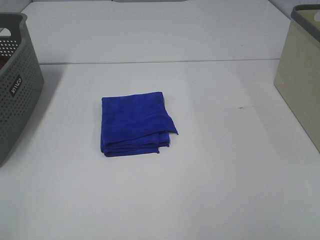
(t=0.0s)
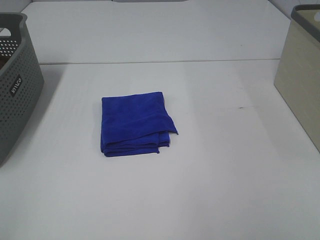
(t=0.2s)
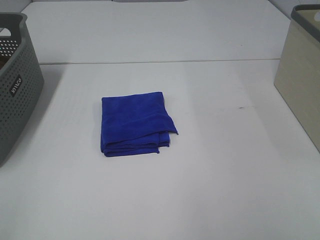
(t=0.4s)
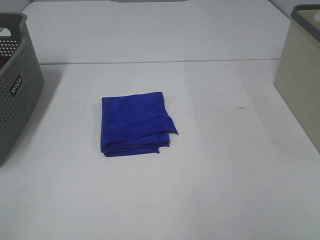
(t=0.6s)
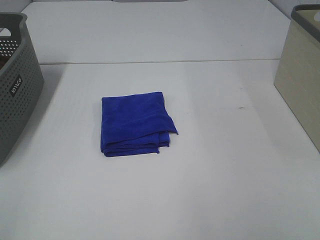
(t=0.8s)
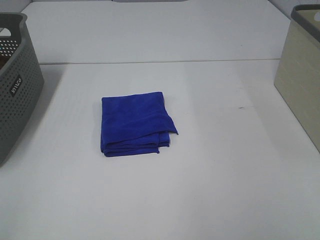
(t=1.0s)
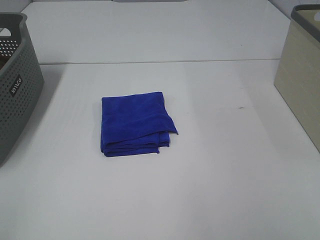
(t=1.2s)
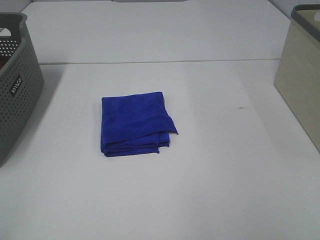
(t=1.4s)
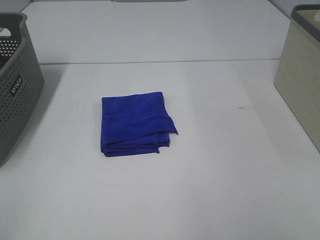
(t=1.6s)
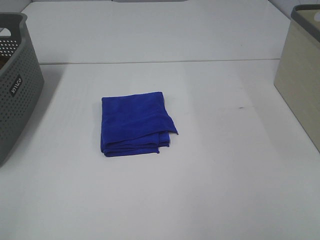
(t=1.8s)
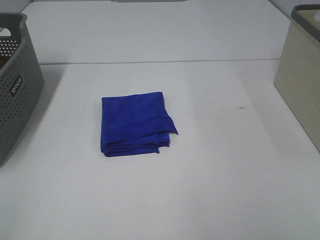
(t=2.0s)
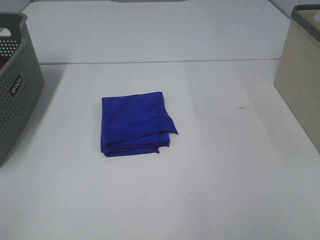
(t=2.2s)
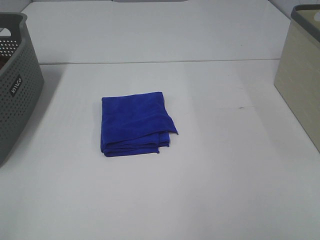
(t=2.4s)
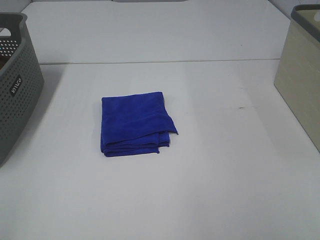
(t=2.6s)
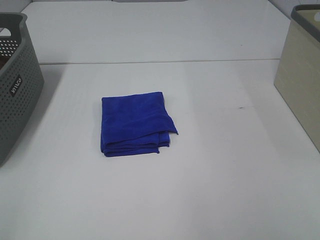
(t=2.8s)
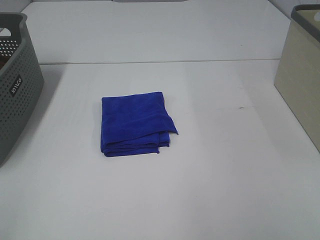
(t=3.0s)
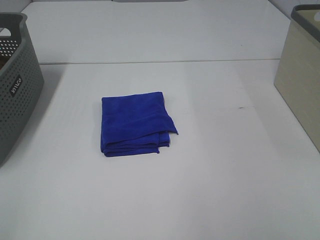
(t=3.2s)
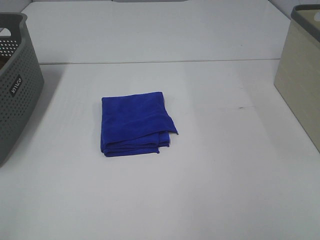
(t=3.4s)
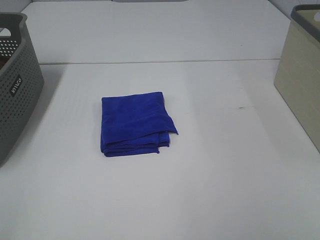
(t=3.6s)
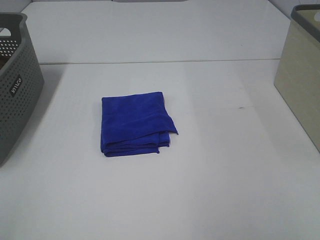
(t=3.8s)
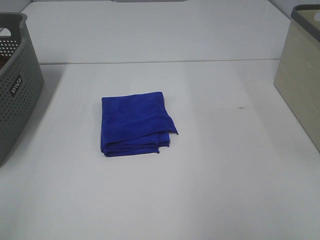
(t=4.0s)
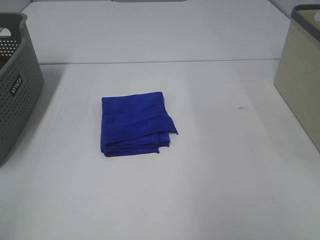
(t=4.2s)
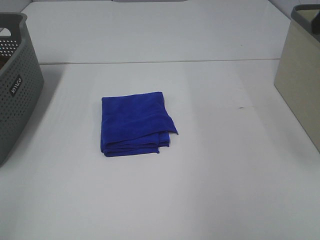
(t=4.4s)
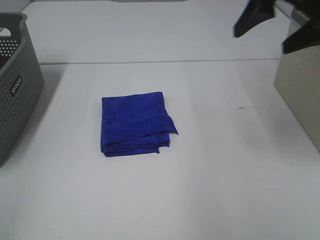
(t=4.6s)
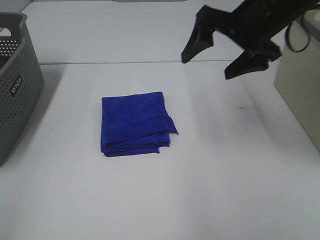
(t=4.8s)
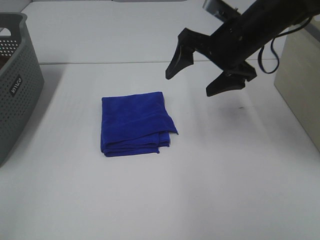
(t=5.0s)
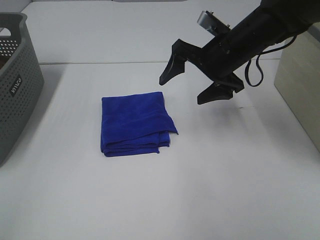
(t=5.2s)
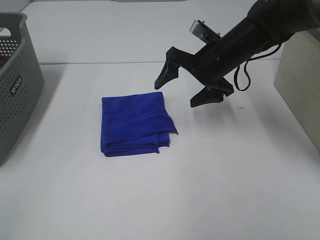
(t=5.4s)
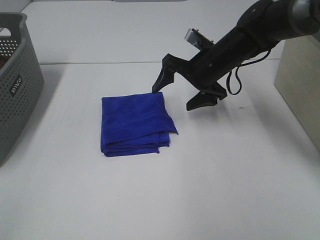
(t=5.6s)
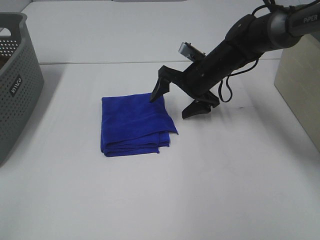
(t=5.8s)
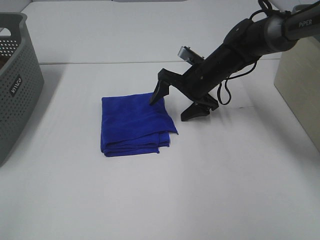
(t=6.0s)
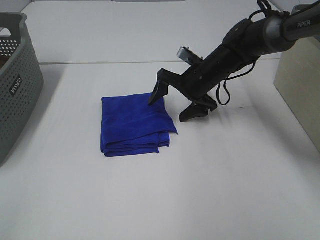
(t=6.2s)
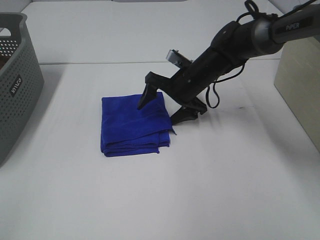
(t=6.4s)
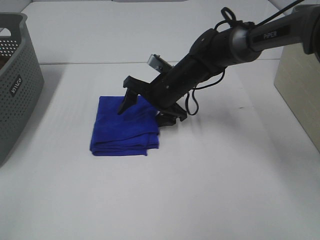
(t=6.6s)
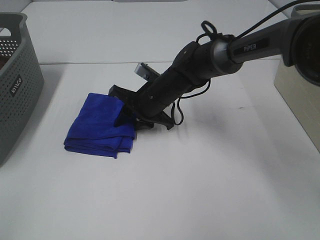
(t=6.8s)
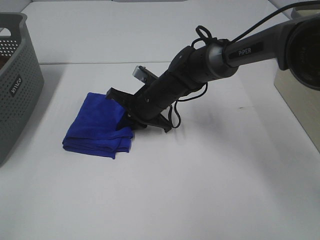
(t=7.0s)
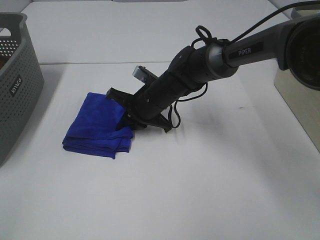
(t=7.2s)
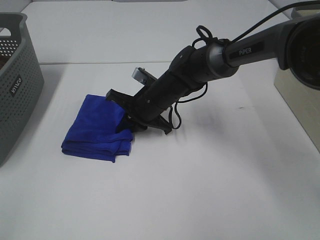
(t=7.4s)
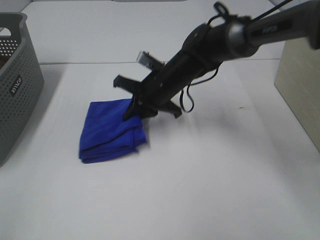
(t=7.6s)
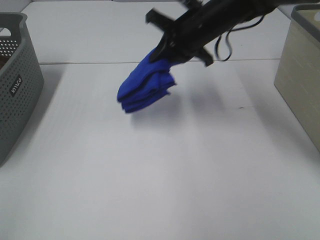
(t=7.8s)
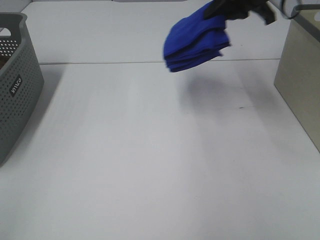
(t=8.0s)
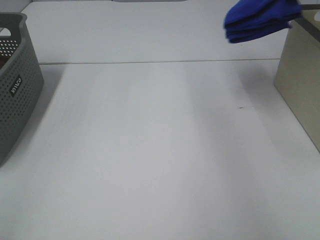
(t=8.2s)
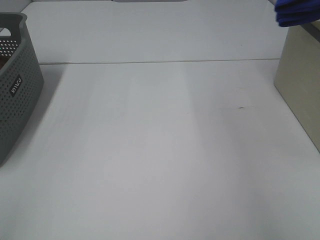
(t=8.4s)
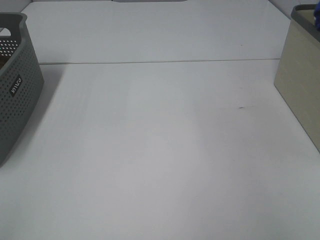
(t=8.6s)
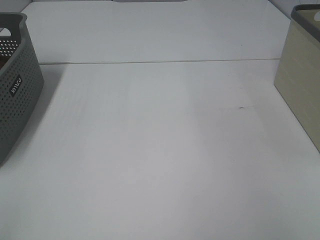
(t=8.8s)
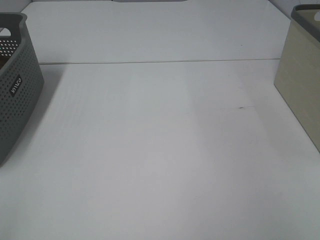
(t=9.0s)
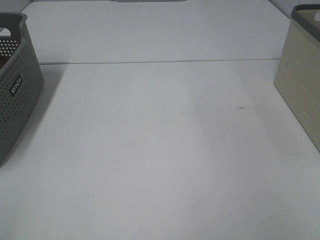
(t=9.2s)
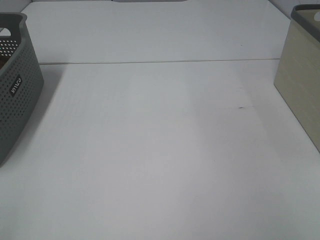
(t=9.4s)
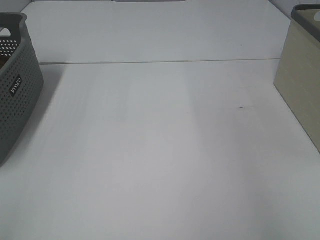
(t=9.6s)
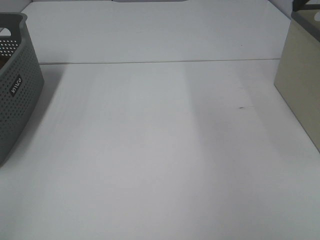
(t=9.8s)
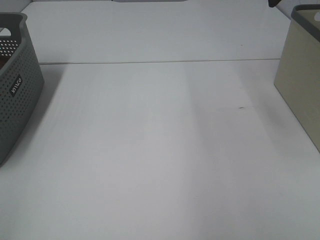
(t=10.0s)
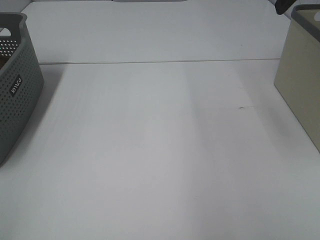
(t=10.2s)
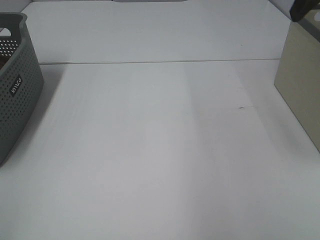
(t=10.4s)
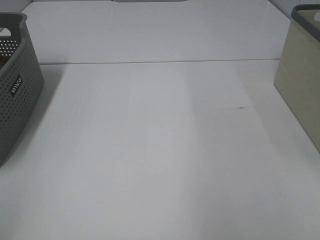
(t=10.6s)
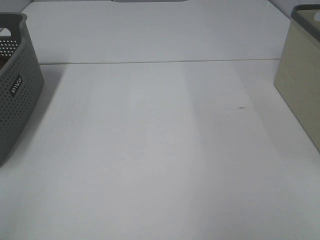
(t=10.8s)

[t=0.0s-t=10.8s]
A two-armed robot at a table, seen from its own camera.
Step, t=0.0s to t=7.0s: Right hand: grab the folded blue towel.
Step, t=7.2s to t=9.4s: Right hand: place the blue towel in right basket.
t=0.0s to t=3.0s: Both grippers stay about where they are.
t=3.0s to t=4.6s: The right gripper heads forward, covering about 30 cm.
t=4.6s to t=6.2s: The right gripper shifts approximately 25 cm downward, forward and to the left.
t=6.2s to t=7.8s: The right gripper moves upward, approximately 15 cm, and closes up.
t=7.8s to t=9.2s: The right gripper heads to the right, covering approximately 35 cm, and opens.

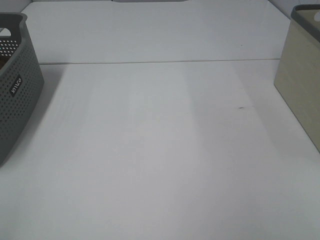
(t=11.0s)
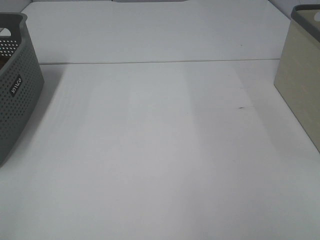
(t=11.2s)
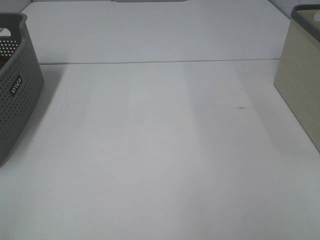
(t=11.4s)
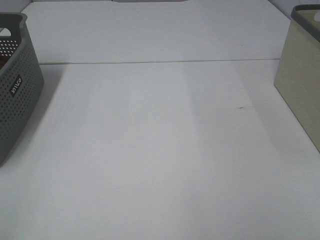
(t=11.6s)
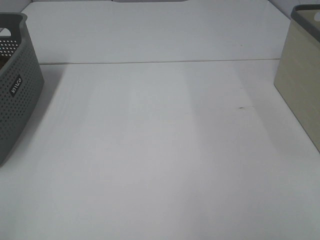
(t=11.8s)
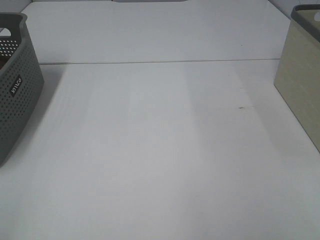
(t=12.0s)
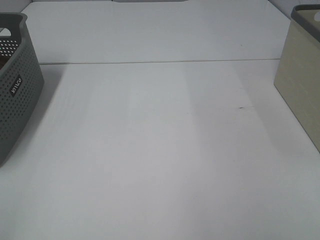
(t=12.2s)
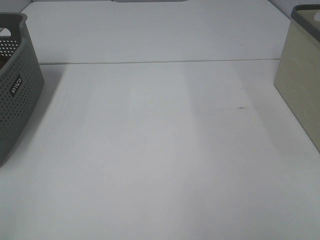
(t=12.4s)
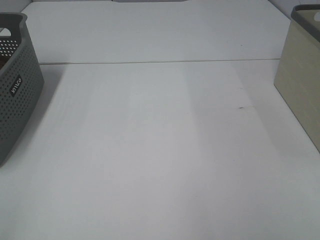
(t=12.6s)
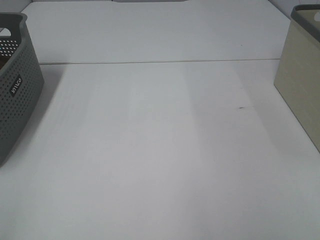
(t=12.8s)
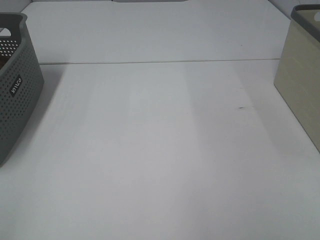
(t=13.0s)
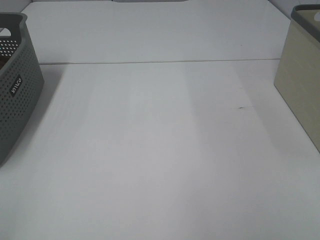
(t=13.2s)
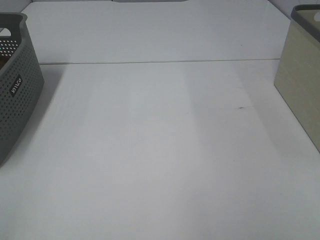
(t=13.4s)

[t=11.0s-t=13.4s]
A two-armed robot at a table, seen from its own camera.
t=12.2s to t=13.4s: Both grippers stay put.

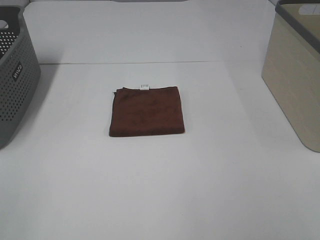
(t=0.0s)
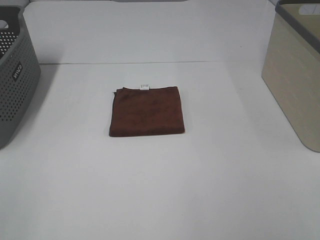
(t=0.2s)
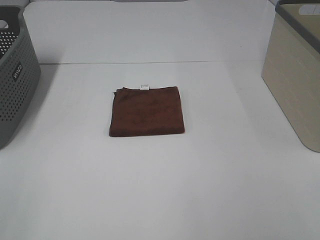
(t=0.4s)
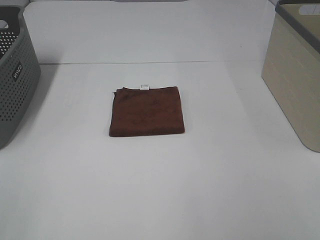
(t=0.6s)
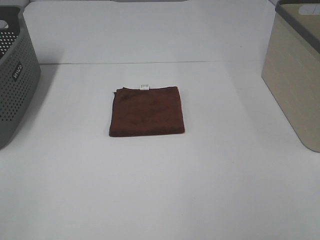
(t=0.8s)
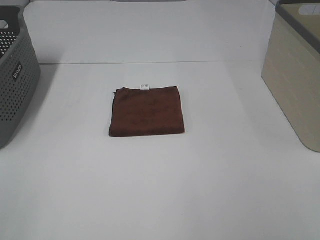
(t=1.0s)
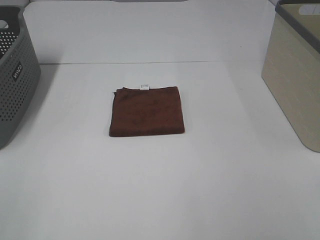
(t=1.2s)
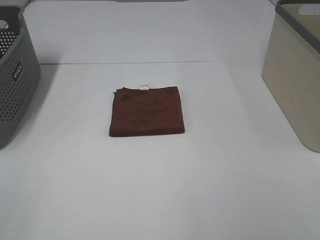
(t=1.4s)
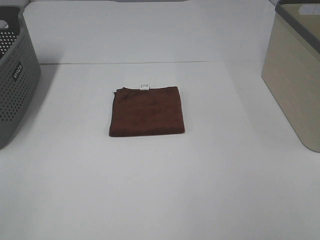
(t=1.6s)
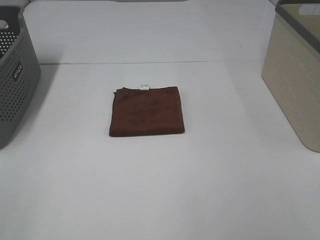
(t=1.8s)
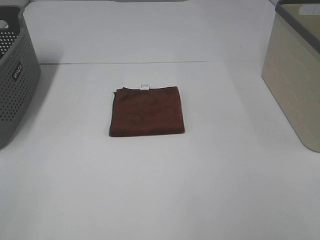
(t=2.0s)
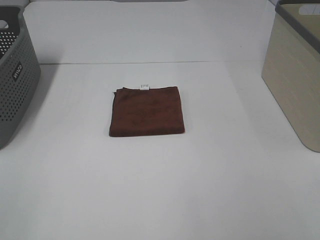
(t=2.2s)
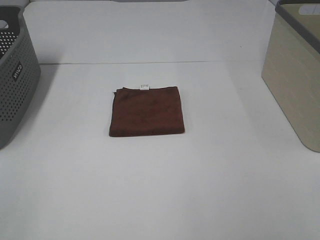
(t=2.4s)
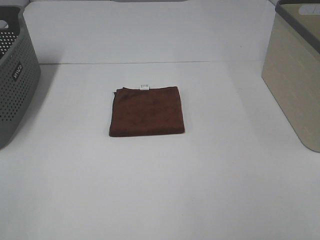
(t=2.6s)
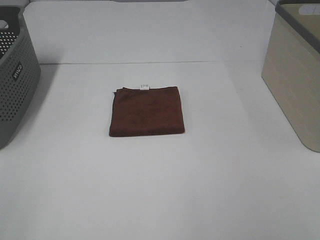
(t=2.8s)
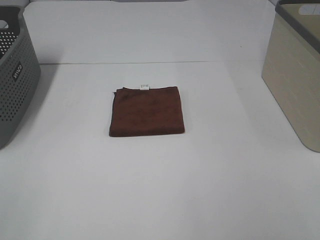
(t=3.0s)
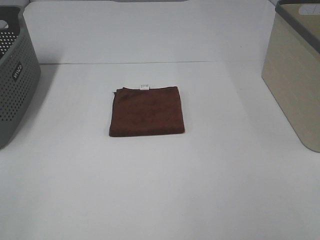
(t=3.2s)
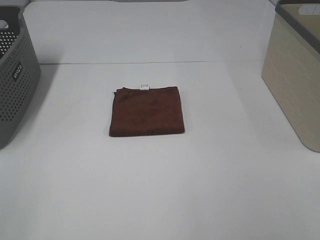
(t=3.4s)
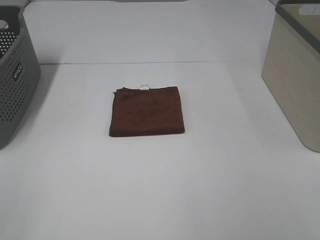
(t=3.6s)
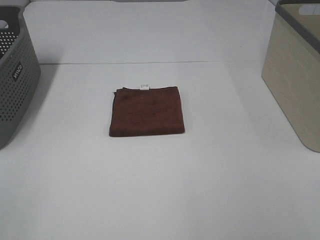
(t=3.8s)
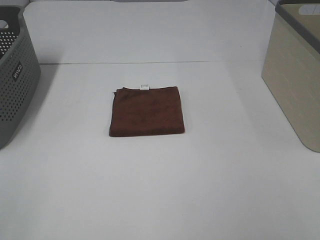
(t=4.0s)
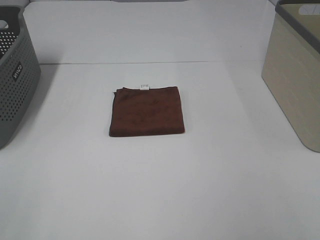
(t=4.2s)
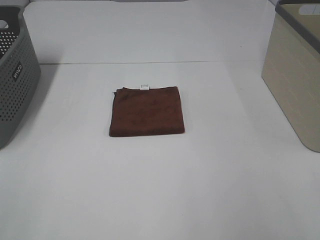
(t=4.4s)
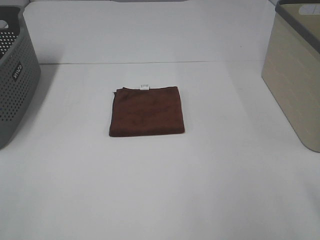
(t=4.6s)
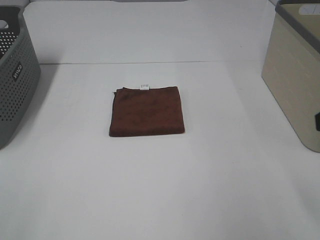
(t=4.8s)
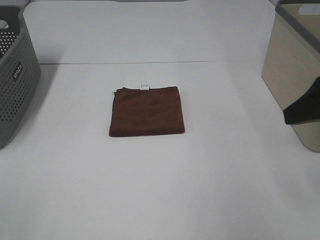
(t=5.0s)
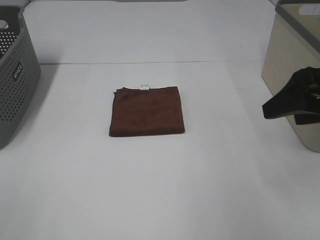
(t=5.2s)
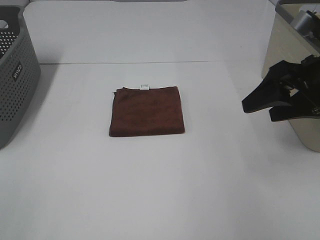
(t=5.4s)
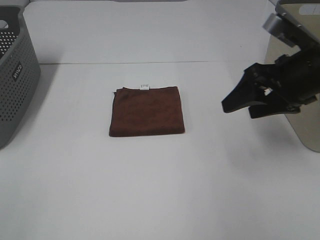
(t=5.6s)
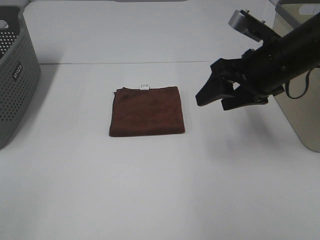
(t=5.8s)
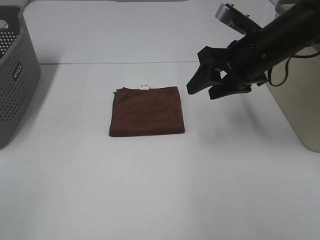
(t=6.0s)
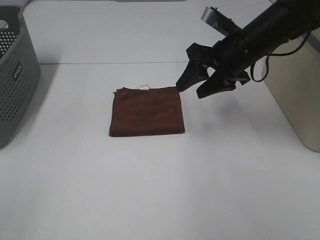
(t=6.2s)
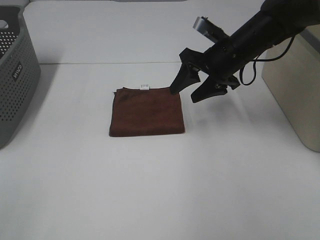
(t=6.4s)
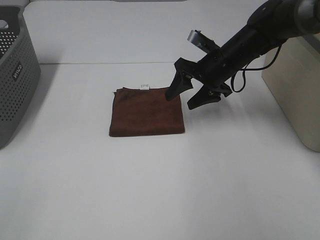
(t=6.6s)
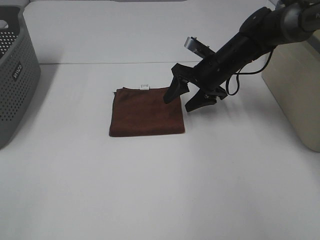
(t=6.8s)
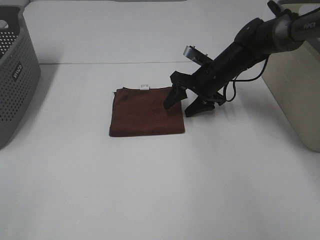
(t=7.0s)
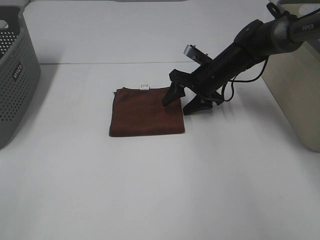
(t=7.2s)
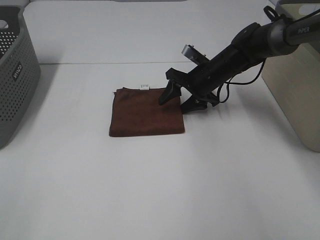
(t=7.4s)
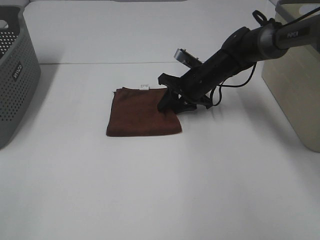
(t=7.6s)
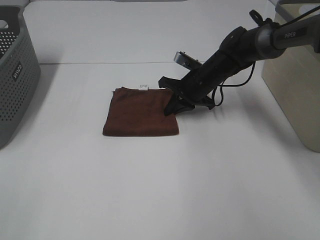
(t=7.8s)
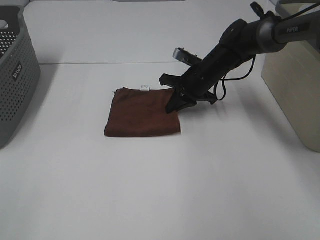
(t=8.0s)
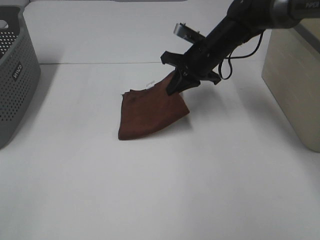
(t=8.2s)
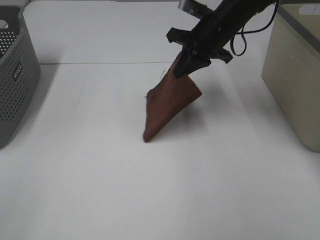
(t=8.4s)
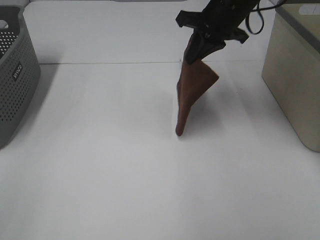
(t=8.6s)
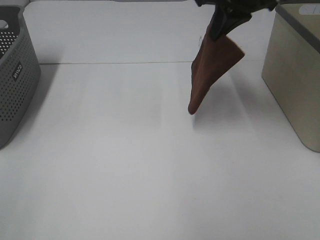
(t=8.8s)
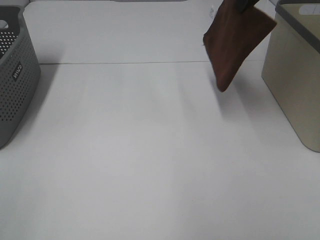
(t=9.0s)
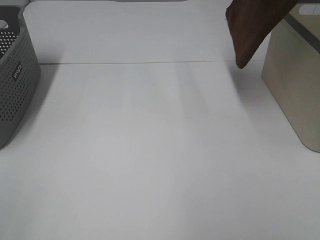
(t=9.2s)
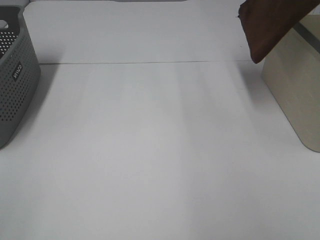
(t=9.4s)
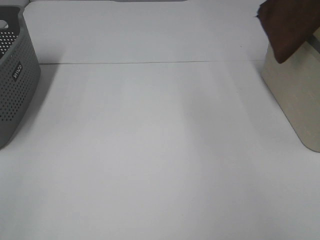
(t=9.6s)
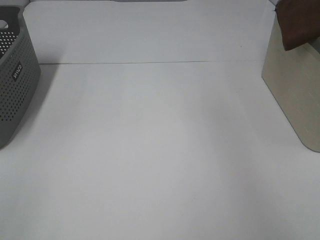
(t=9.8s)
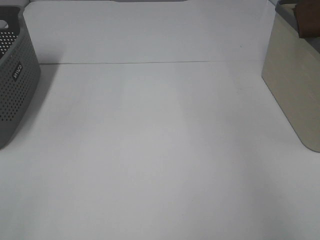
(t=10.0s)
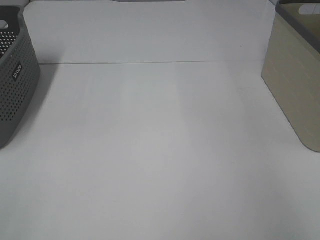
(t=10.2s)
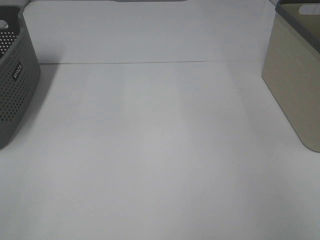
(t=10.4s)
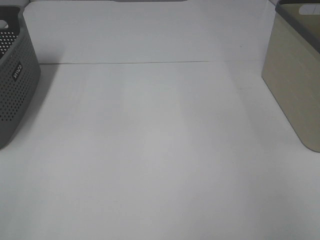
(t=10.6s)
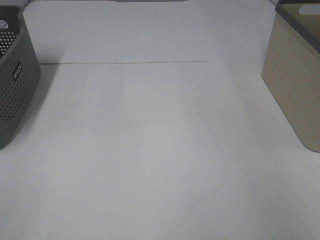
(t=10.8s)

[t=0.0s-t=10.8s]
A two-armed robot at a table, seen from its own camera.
Step, t=0.0s to t=7.8s: Right hand: grab the folded brown towel.
t=0.0s to t=3.0s: Both grippers stay put.
t=4.6s to t=6.2s: The right gripper goes some 30 cm forward and to the left.
t=6.2s to t=7.8s: The right gripper goes some 15 cm downward and forward, and closes up.
t=7.8s to t=9.2s: The right gripper heads upward, covering some 30 cm.
t=9.2s to t=10.8s: The right gripper travels to the right by roughly 25 cm, and opens its fingers.
